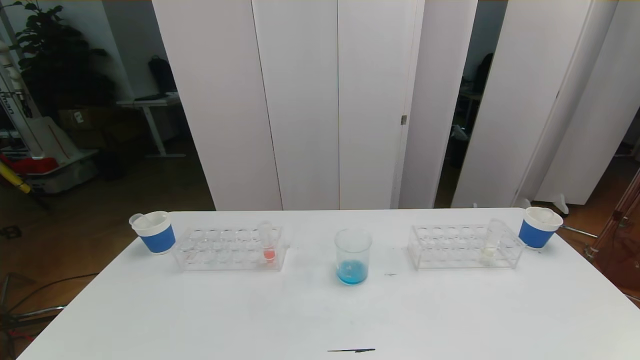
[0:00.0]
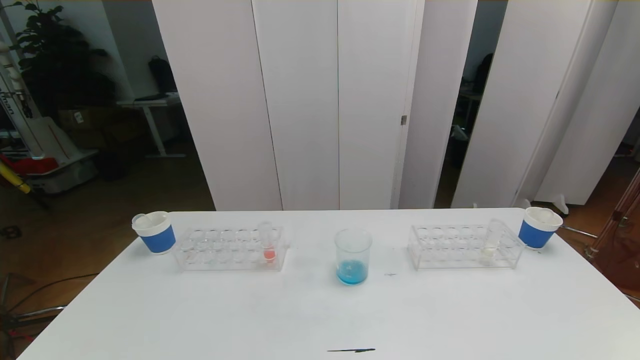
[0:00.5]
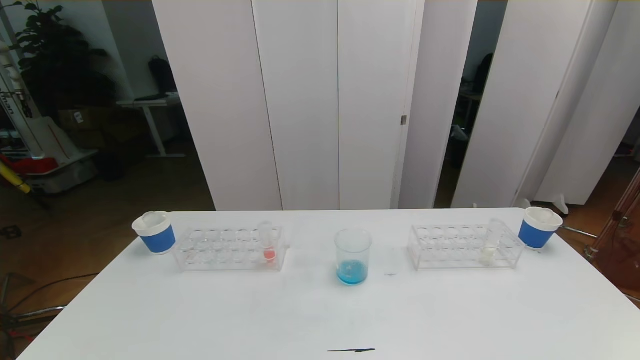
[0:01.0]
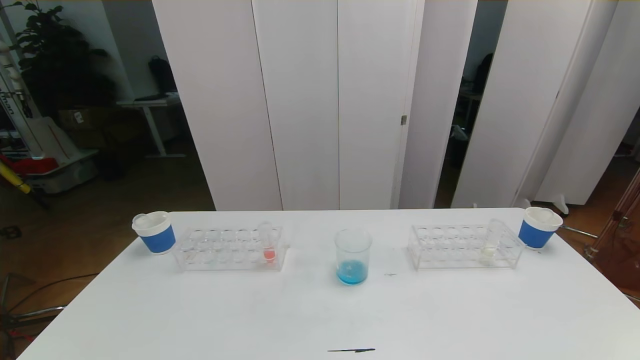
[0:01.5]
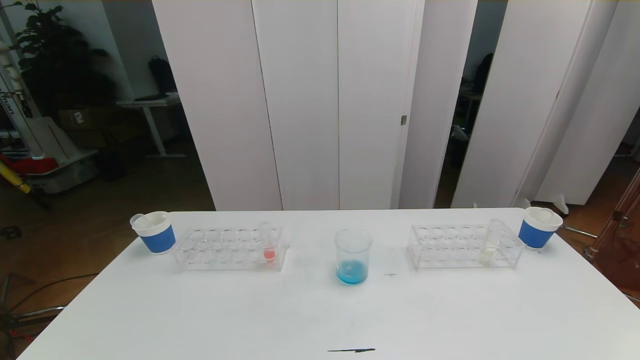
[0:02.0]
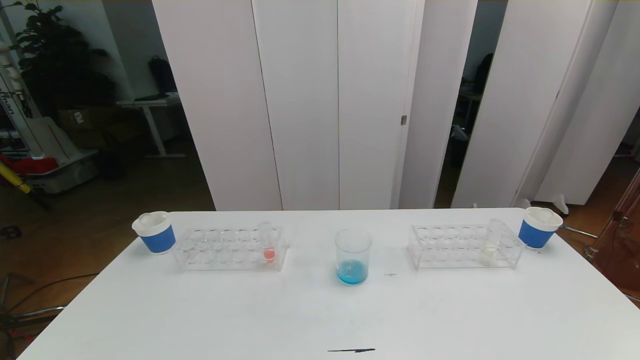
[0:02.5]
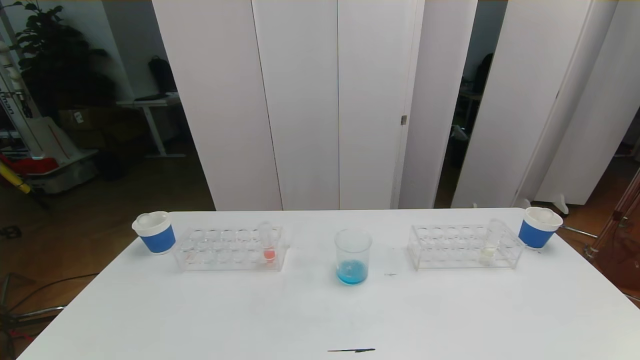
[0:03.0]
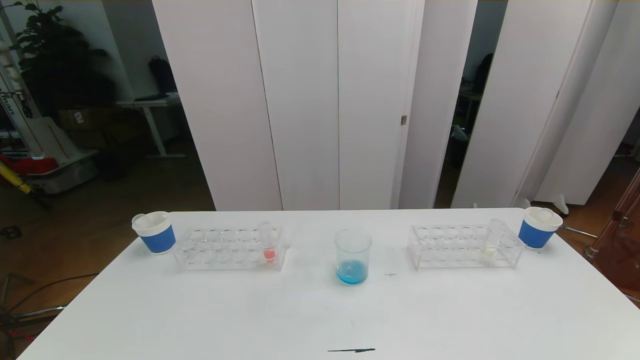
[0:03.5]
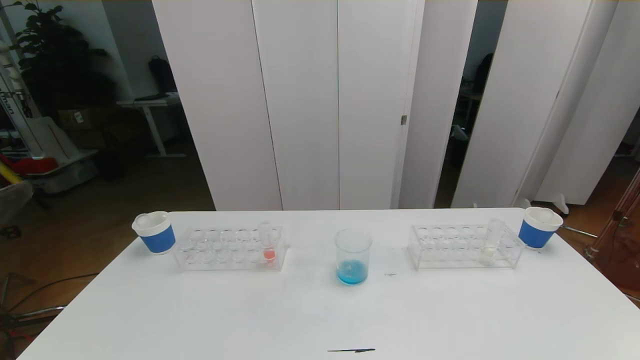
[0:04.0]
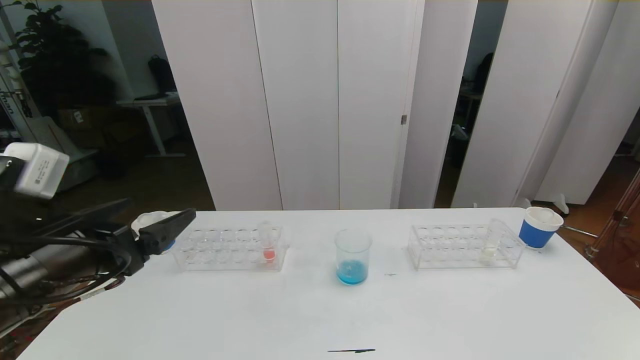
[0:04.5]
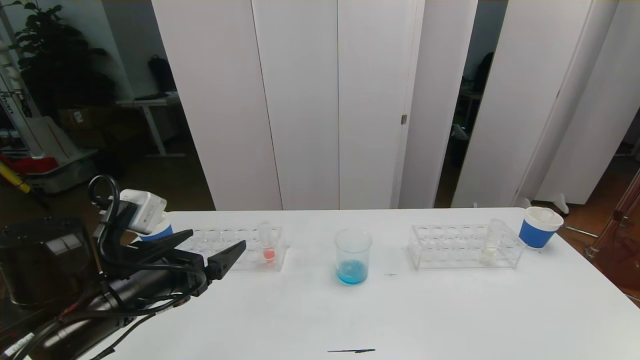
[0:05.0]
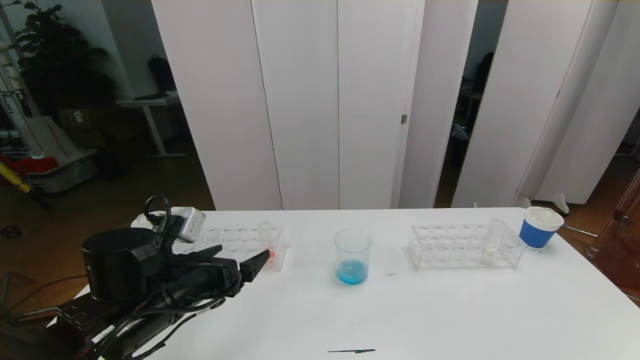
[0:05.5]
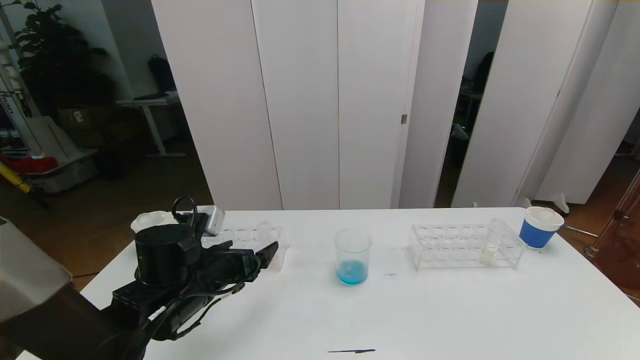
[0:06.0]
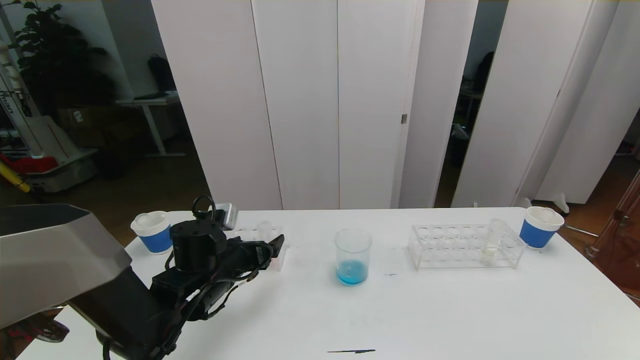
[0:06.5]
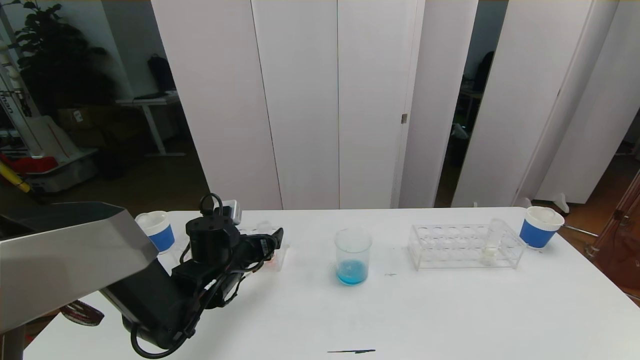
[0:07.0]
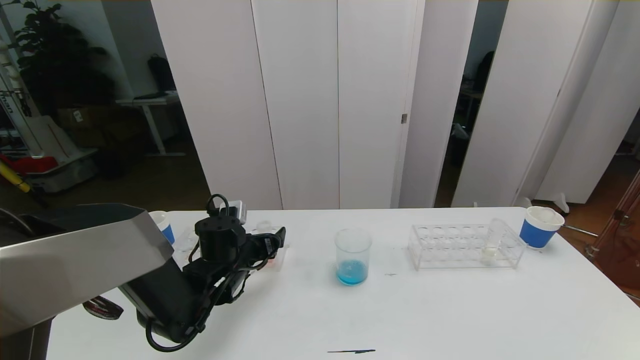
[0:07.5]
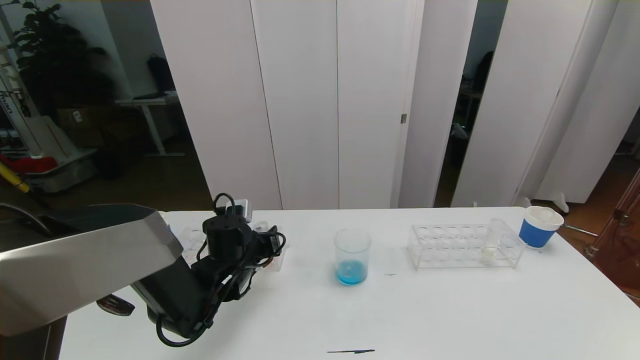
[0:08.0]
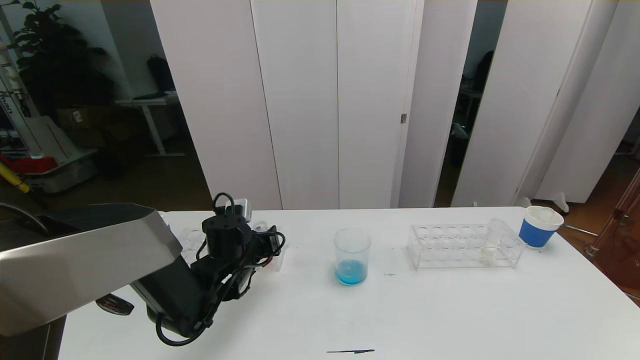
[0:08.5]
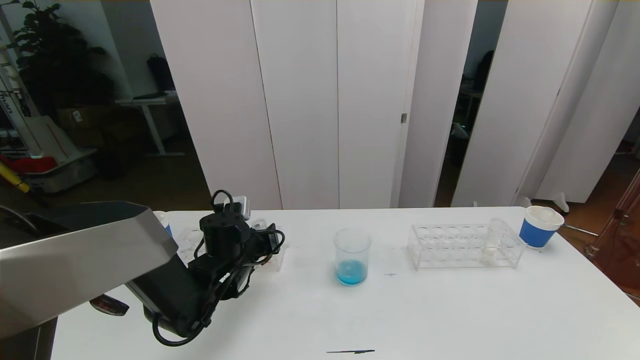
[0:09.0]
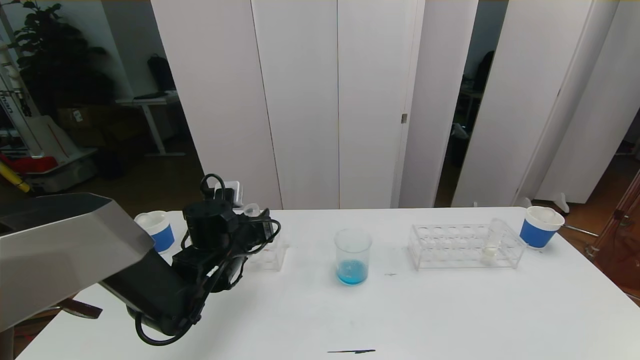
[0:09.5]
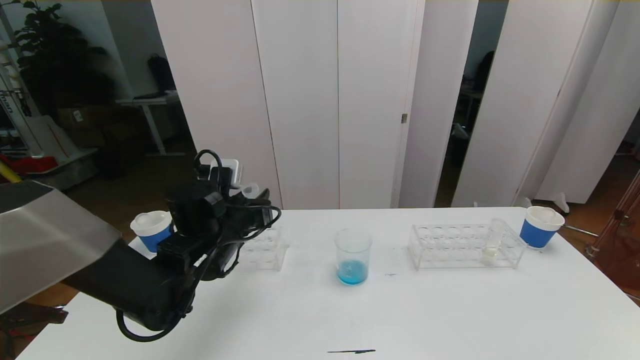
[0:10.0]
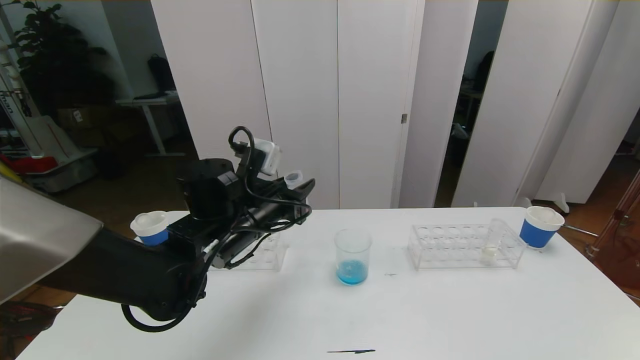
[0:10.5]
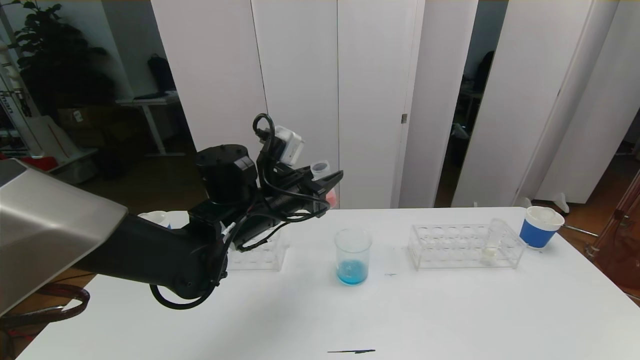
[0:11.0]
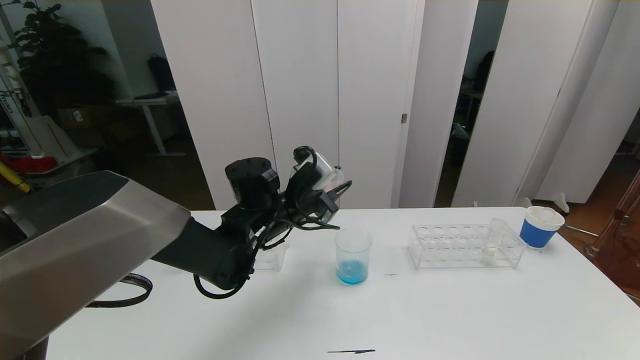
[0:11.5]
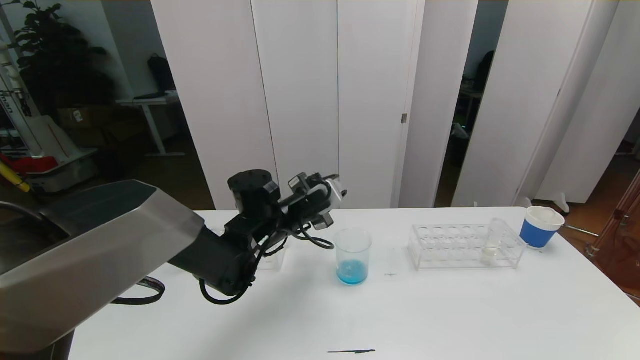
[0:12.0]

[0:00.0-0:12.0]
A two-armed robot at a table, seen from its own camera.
Task of the whole recording: pick up the test tube with red pigment the test tube with blue pigment and the test tube with white pigment by grippers and pour them into the beaker.
4.0 to 6.0 s: The left gripper travels forward, downward and to the right by approximately 30 cm.
6.0 to 8.0 s: The left gripper heads forward, covering some 10 cm, and closes up.
8.0 to 10.0 s: The left gripper is displaced upward by roughly 10 cm.
10.0 to 12.0 s: The left gripper moves to the right, some 5 cm.

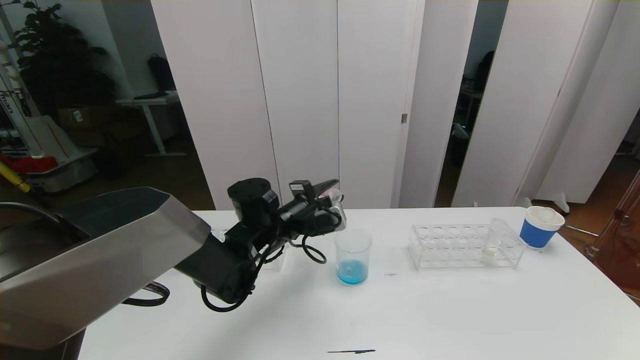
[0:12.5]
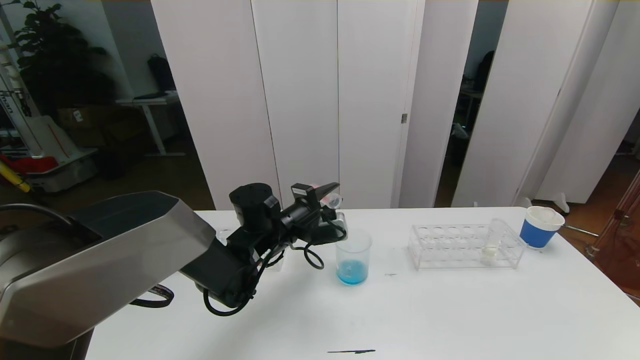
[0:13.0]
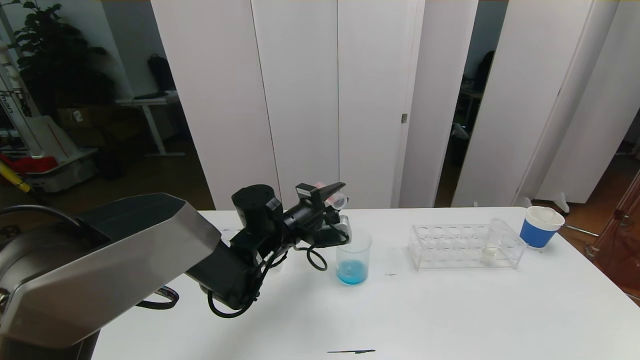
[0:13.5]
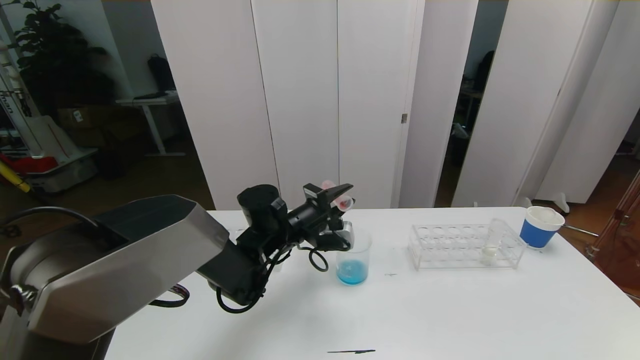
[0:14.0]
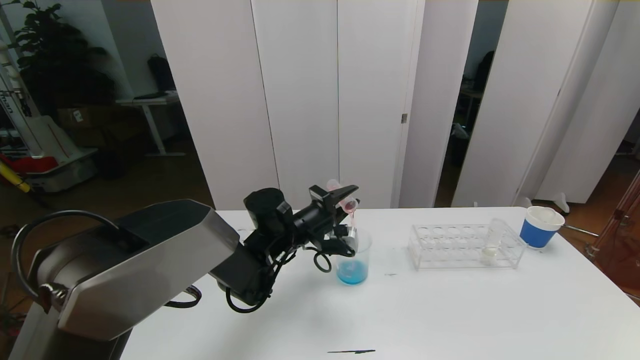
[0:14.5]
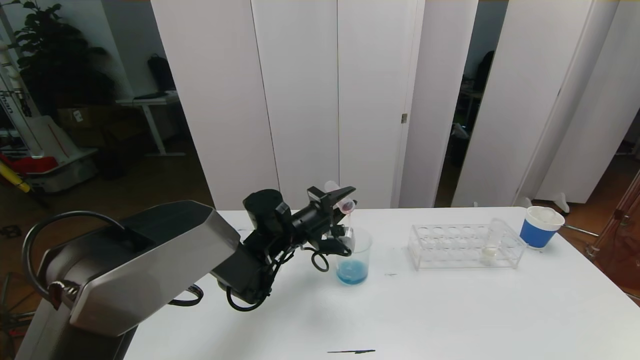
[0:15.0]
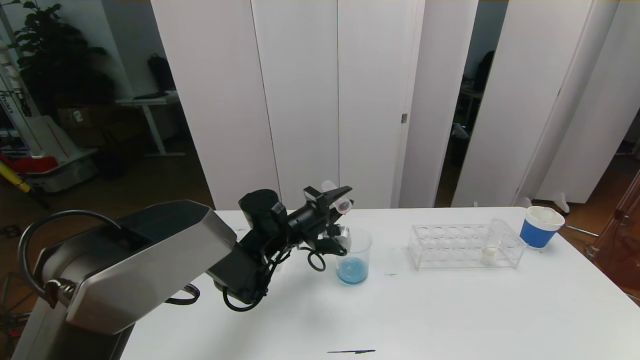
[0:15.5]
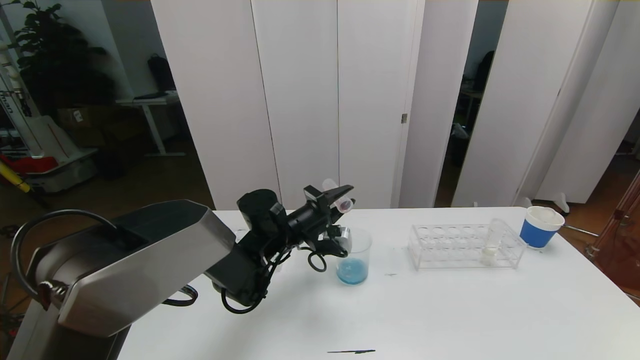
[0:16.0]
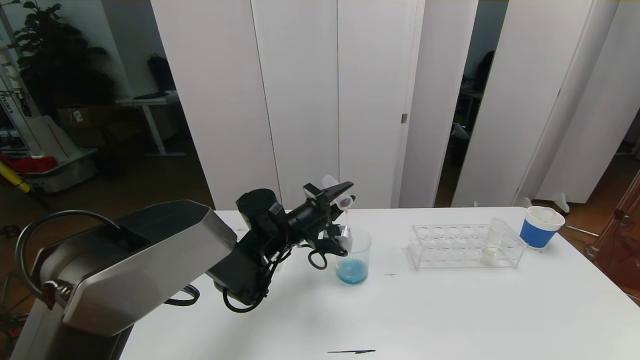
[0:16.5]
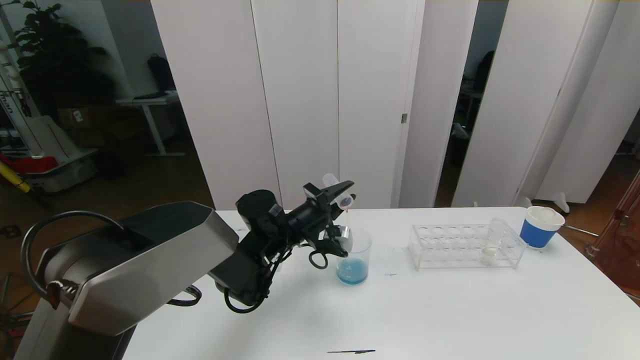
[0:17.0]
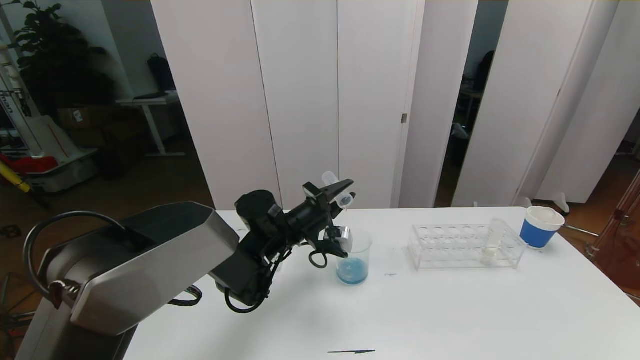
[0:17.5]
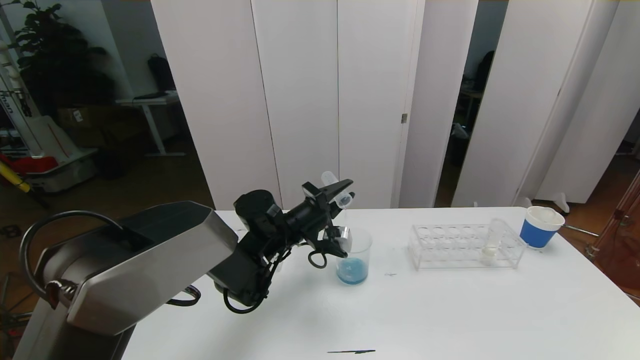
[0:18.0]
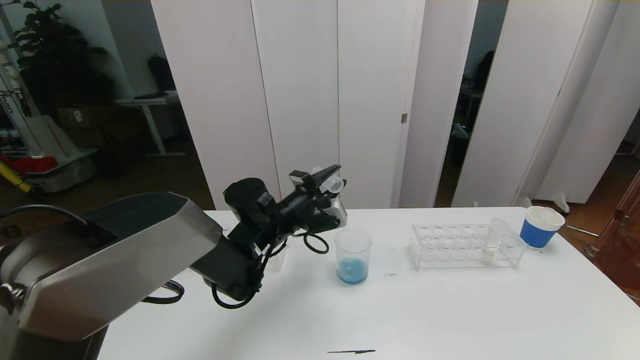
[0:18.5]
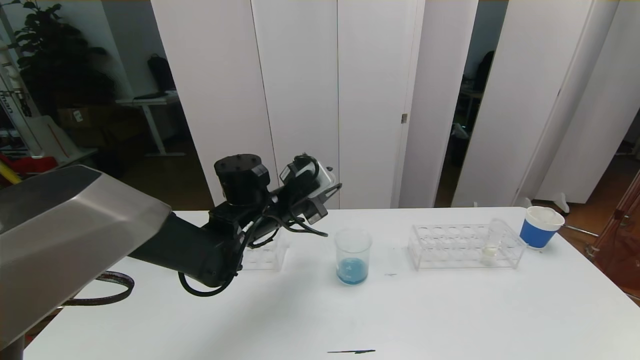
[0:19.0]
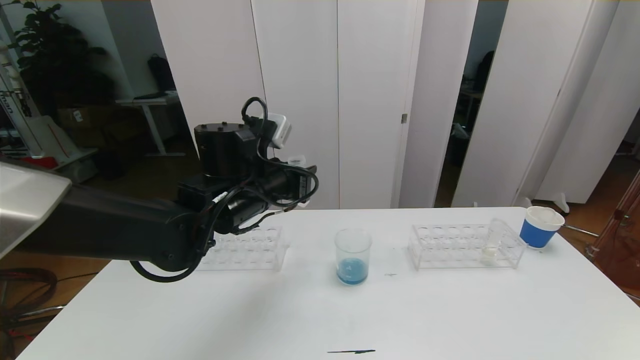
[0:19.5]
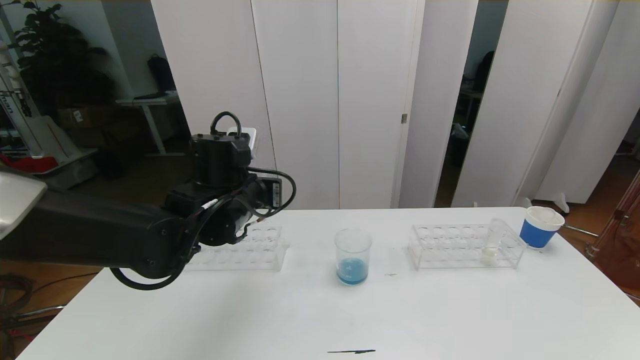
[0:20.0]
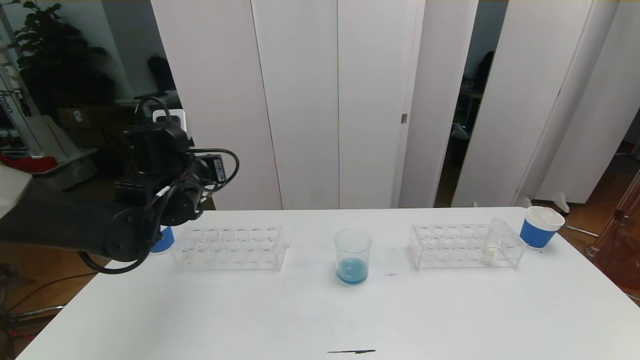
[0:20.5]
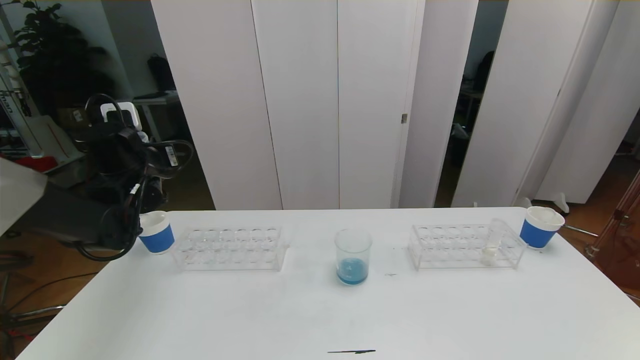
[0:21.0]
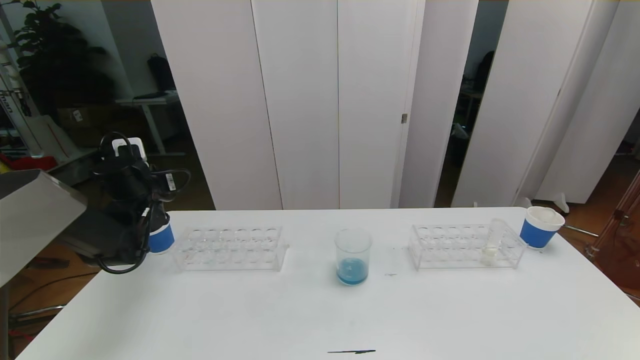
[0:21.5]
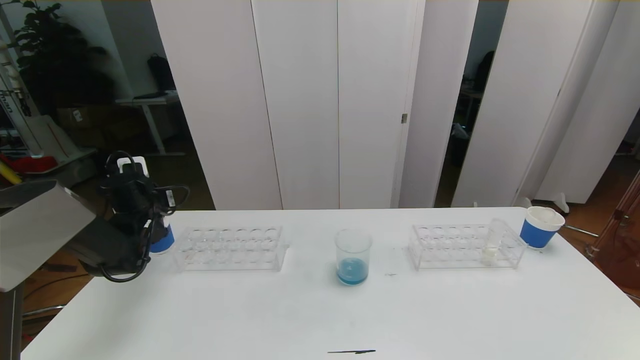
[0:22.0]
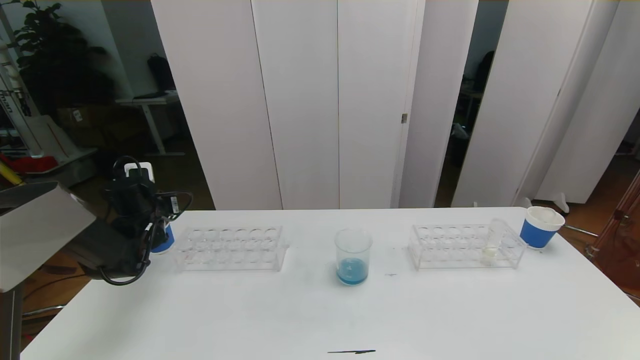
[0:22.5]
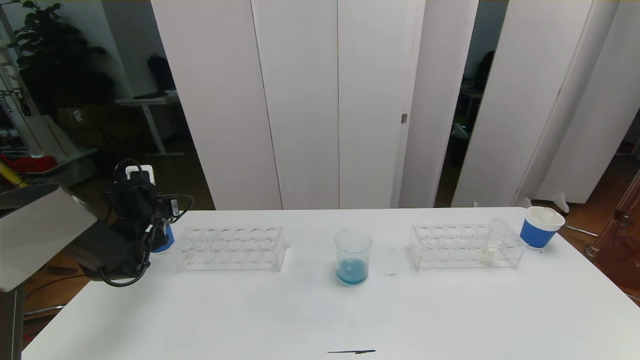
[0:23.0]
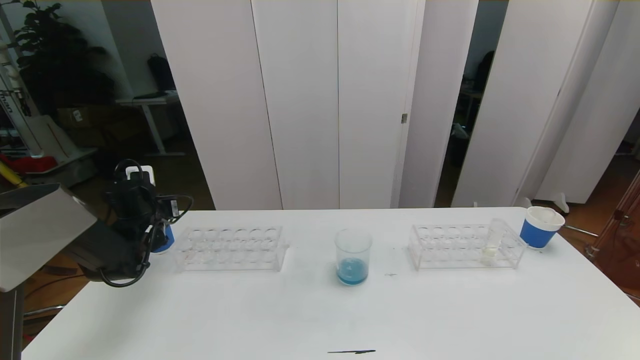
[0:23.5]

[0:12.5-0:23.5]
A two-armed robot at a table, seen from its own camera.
Task of the whole recording: pick up the test tube with red pigment the test tube with blue pigment and the test tube with white pigment by grippers and pour them into the beaker.
12.5 to 16.0 s: The grippers make only small movements.
16.0 to 18.0 s: The grippers make only small movements.
18.0 to 20.0 s: The left gripper shifts approximately 10 cm upward, backward and to the left.
20.0 to 21.5 s: The left gripper travels to the left and forward by approximately 20 cm.
21.5 to 23.5 s: The left gripper changes place by some 5 cm.
